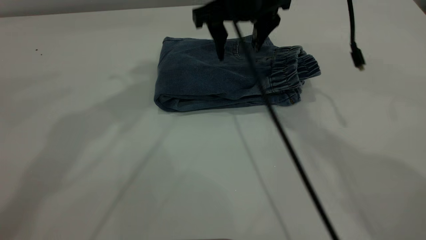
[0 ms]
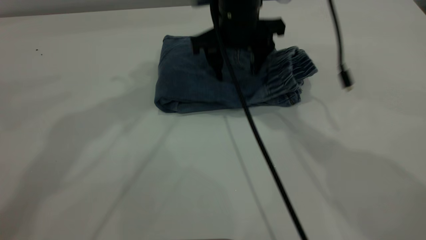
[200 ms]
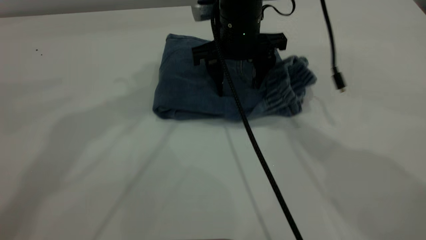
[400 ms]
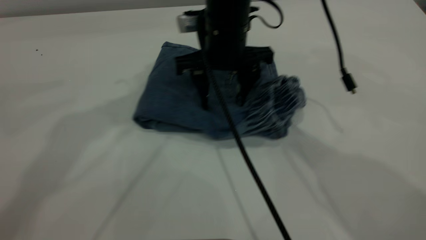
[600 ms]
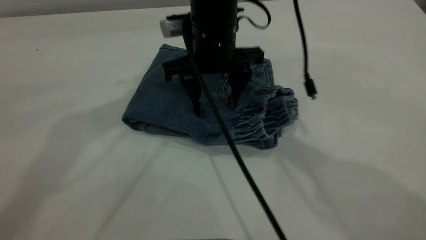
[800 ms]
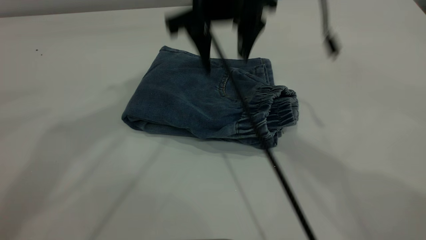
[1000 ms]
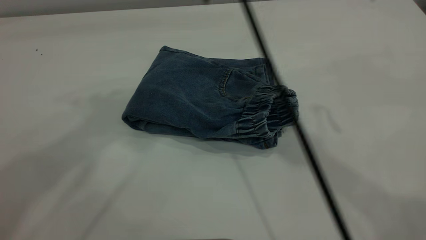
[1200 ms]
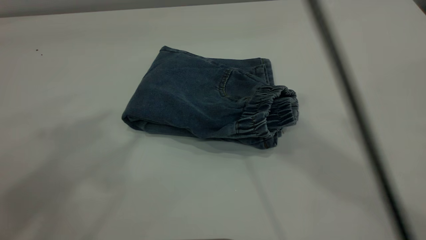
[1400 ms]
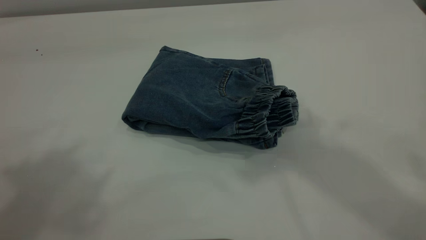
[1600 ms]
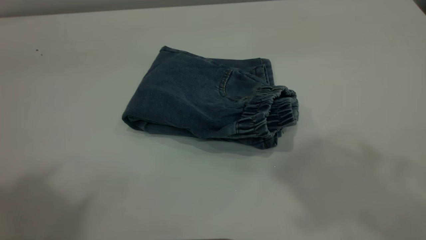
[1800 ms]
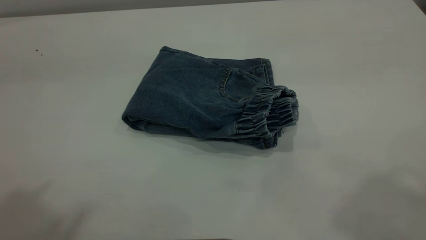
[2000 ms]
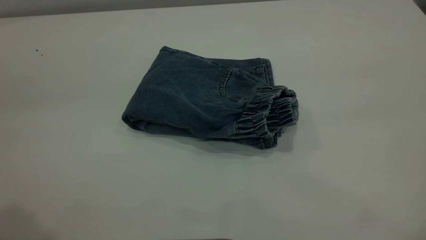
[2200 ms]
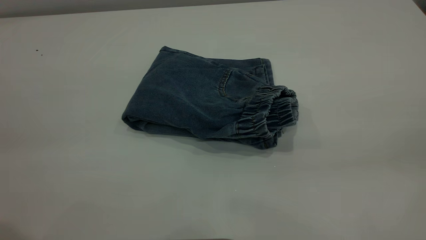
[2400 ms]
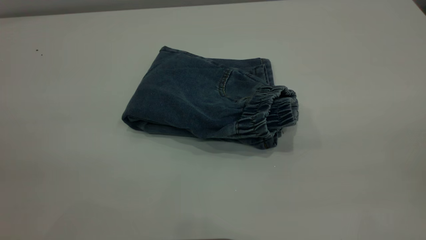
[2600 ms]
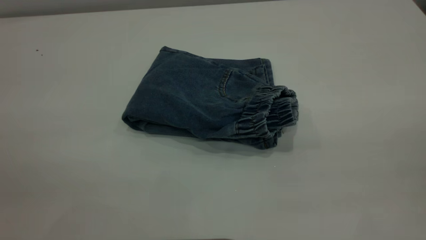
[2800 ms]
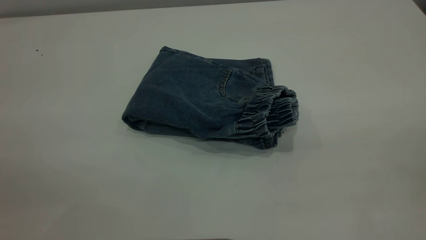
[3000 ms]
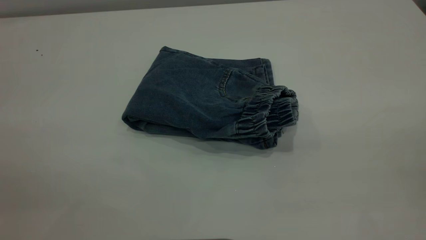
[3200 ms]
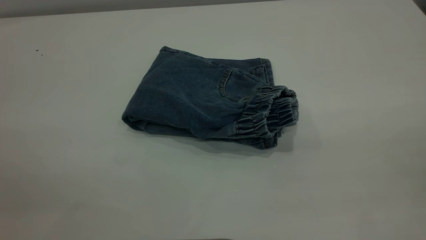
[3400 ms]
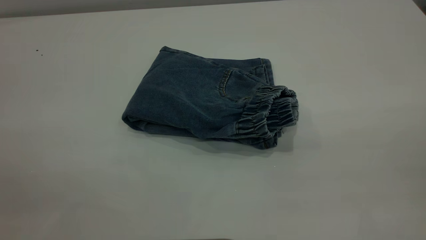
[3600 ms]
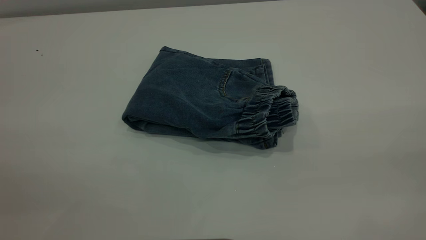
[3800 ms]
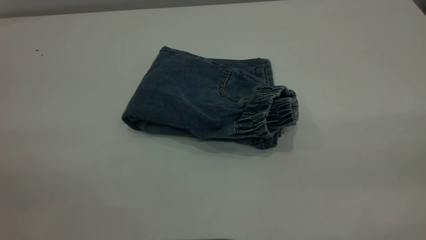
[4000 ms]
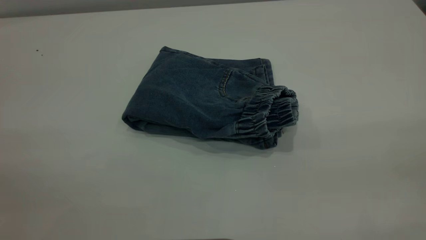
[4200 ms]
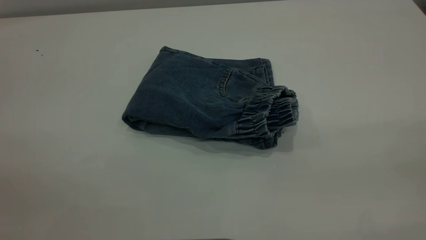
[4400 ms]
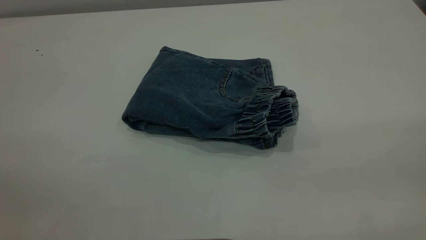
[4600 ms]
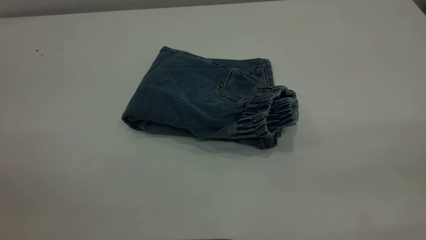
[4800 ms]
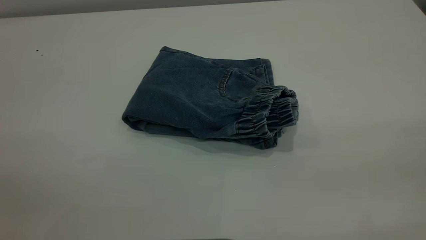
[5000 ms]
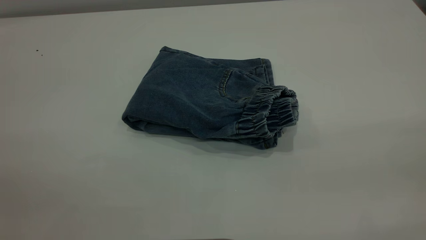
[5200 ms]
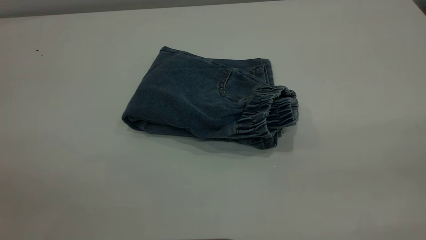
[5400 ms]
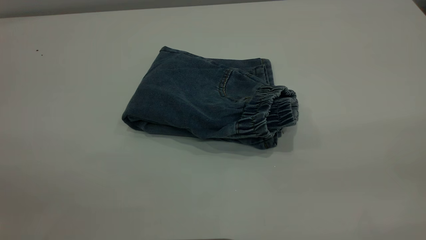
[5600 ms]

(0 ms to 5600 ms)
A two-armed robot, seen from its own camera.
0 ms - 1400 ms: The right gripper shifts approximately 25 cm upward and backward. Meanwhile the left gripper is displaced backward, upward and to the left by roughly 20 cm.
1400 ms - 2800 ms: The right gripper is displaced backward and to the right by approximately 35 cm.
4200 ms - 5600 ms: Both grippers stay put.

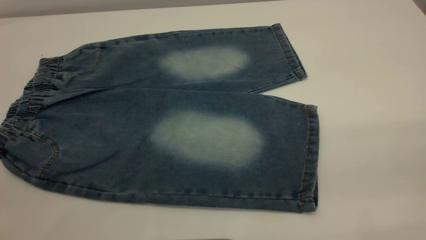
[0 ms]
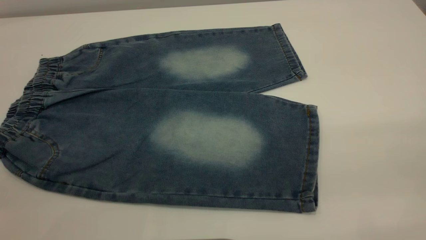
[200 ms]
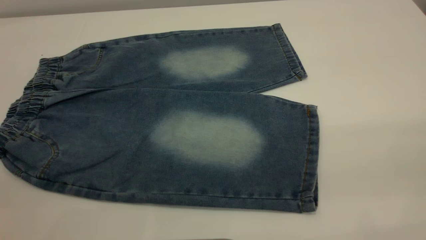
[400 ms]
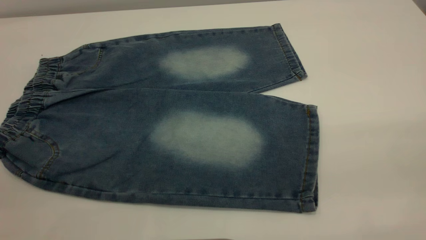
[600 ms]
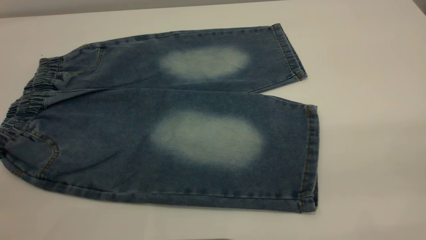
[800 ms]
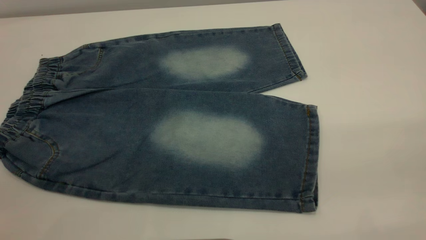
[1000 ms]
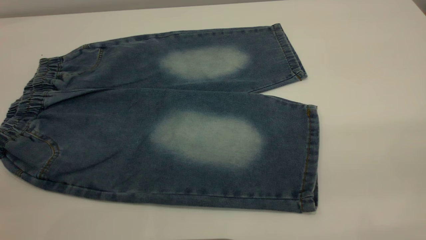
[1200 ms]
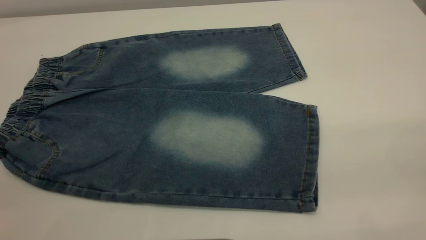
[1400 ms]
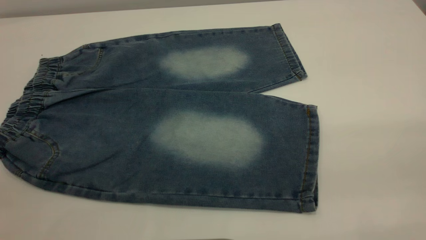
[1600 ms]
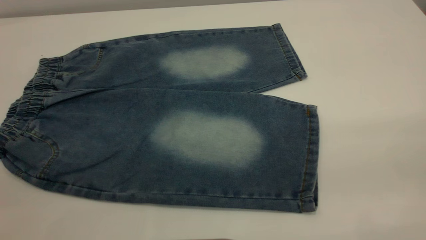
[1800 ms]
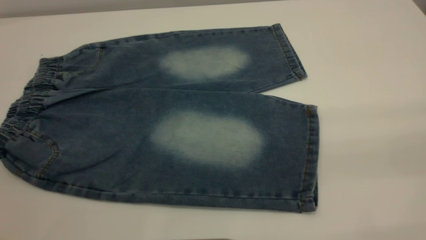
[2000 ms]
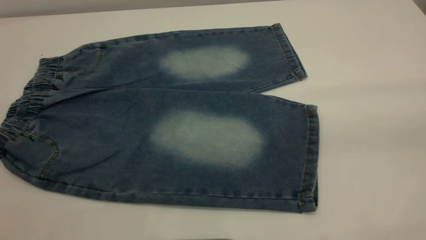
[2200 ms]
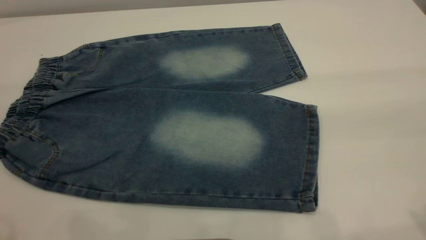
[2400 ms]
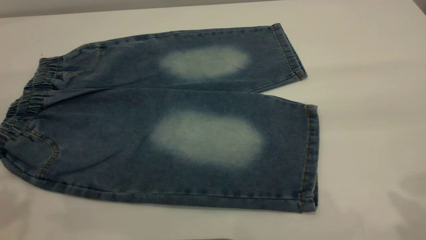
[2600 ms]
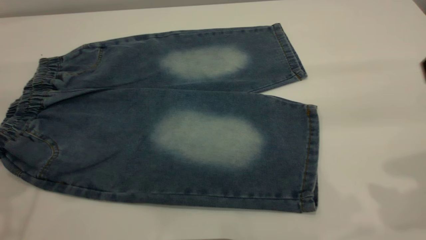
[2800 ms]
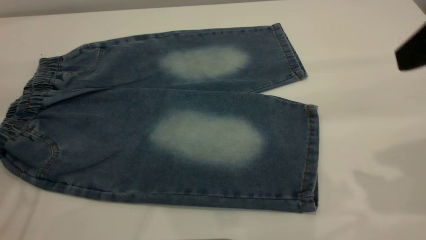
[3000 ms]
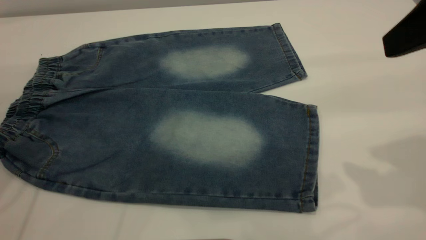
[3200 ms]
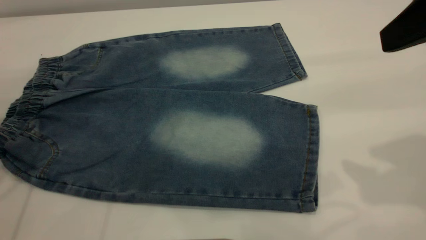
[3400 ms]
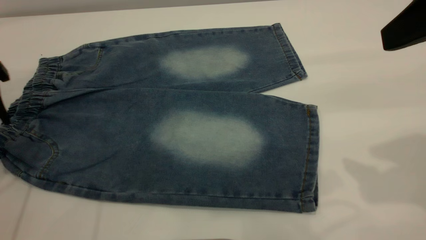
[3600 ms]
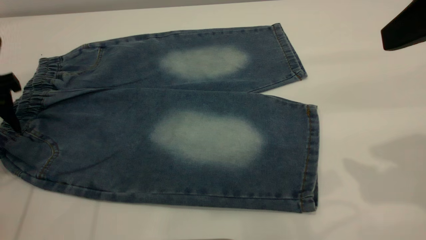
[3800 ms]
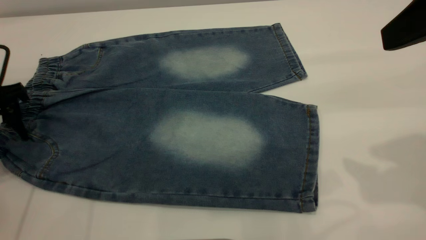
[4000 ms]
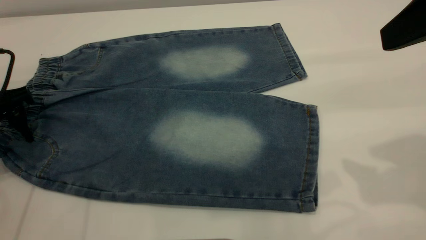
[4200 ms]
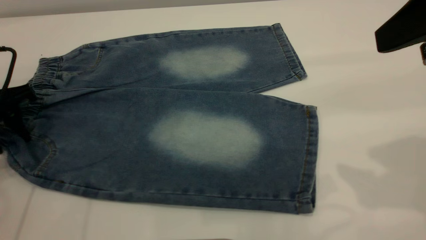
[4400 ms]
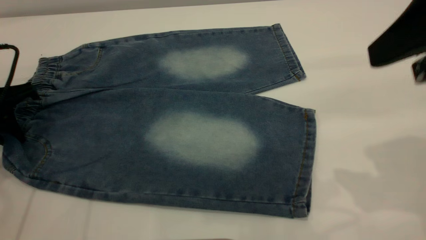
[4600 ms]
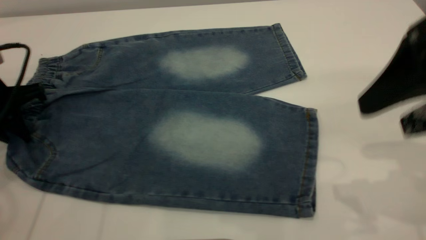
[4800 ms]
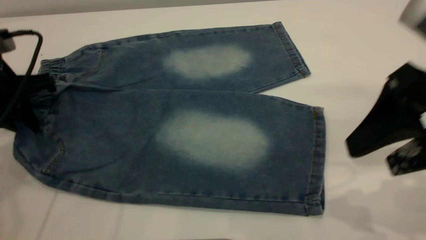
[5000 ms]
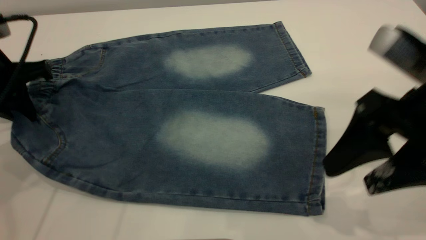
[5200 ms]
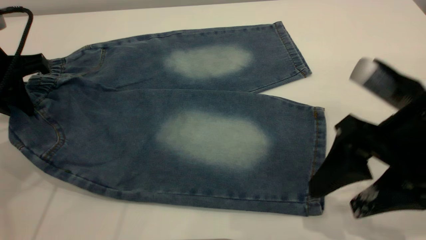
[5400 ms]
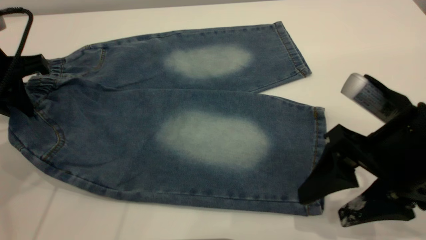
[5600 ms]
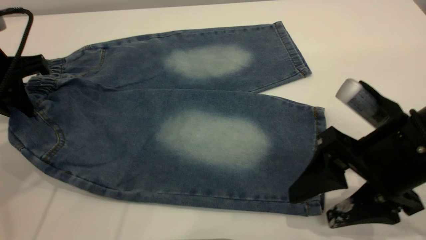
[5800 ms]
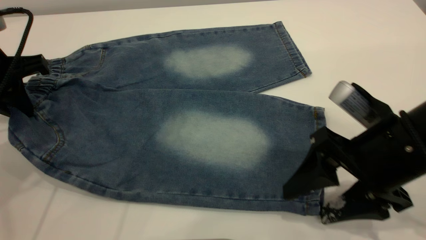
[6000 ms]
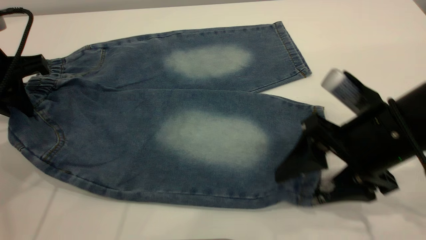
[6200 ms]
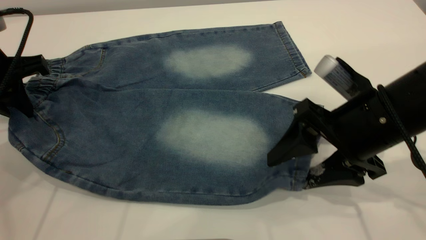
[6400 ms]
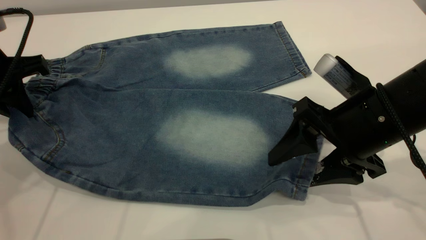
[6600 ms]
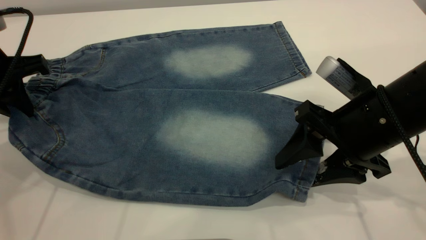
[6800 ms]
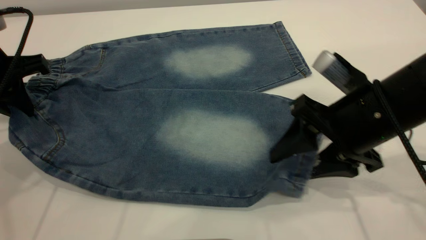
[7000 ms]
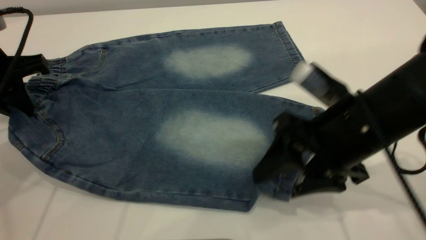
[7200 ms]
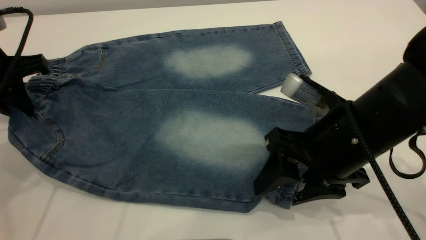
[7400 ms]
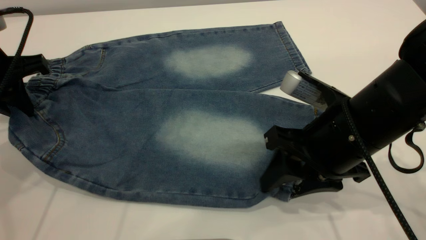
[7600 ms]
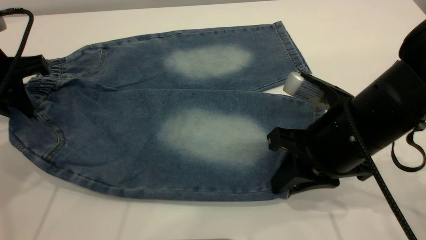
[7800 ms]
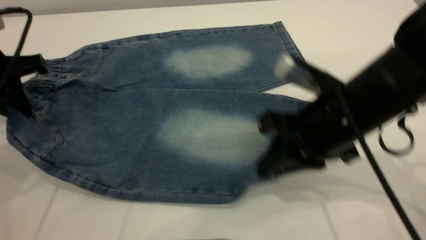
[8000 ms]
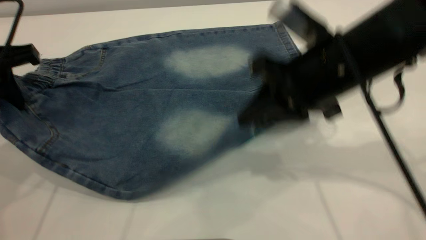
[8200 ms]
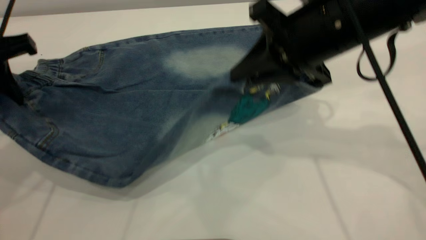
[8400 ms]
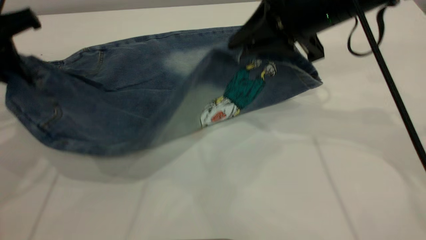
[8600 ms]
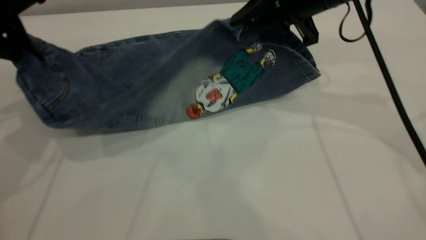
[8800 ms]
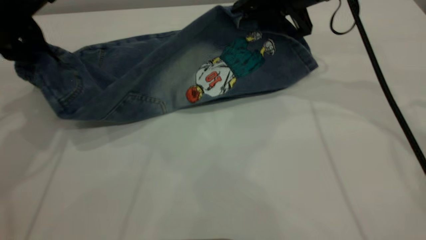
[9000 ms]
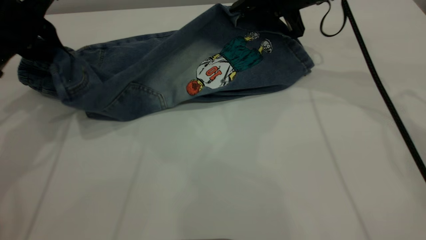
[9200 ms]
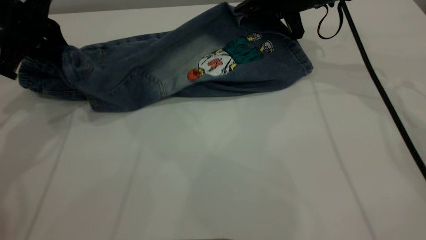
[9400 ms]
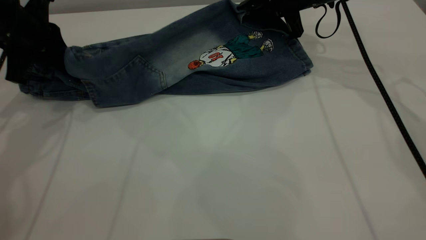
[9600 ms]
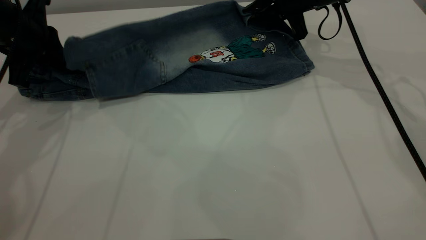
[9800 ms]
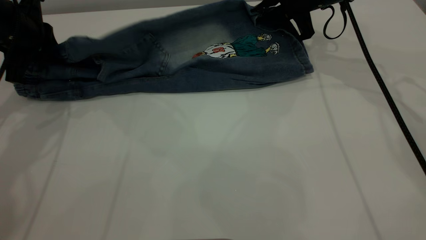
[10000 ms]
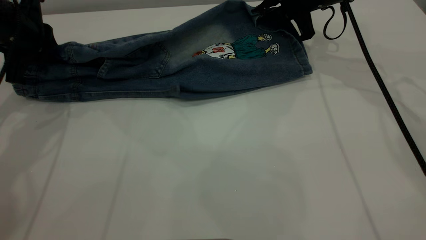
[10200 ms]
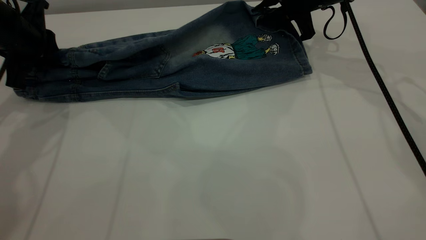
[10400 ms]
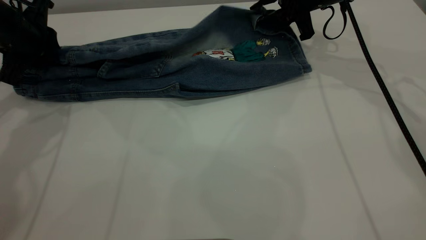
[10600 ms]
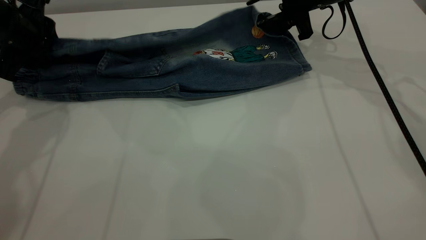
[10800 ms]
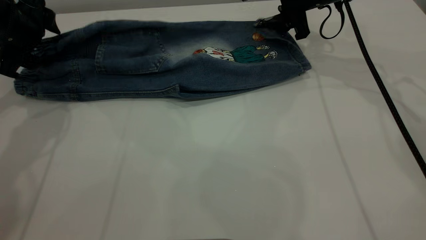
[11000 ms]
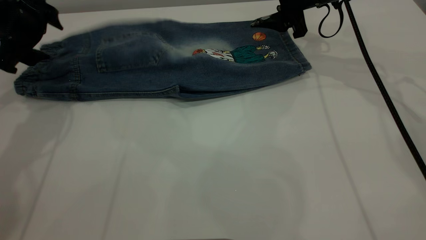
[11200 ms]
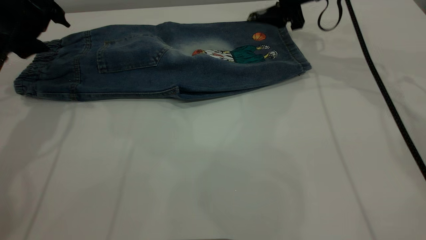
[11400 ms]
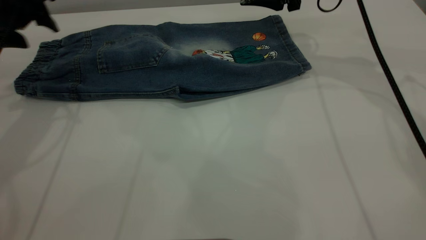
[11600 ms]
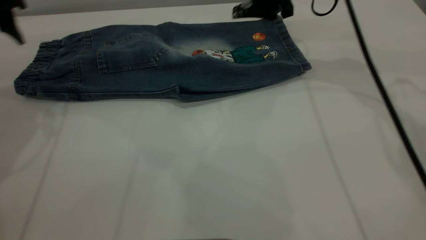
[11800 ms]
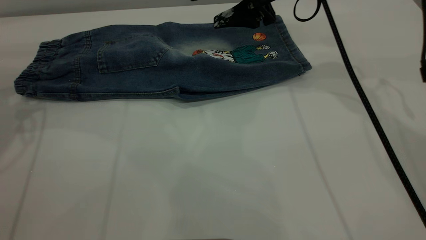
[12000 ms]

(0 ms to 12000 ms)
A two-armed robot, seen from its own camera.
Step, 0 ms - 11400 ms: Fold the bottom of the pants upward.
0 ms - 1600 ms: Neither gripper changes place.
1600 ms - 3000 ms: The right gripper shifts approximately 20 cm forward.
3000 ms - 4400 ms: The left gripper moves downward, about 15 cm, and closes its fingers.
4400 ms - 6000 ms: The left gripper is displaced upward by some 5 cm, and closes up, while the right gripper travels downward by approximately 15 cm.
6000 ms - 7600 ms: The right gripper closes up.
7600 ms - 9000 ms: The left gripper moves roughly 5 cm, while the right gripper goes about 20 cm forward and upward, and closes its fingers.
9000 ms - 10400 ms: The right gripper goes some 5 cm forward. The left gripper moves downward, some 5 cm.
10400 ms - 12000 ms: The right gripper shifts approximately 5 cm to the left, and opens its fingers; the left gripper goes approximately 10 cm upward and to the left, and opens.
